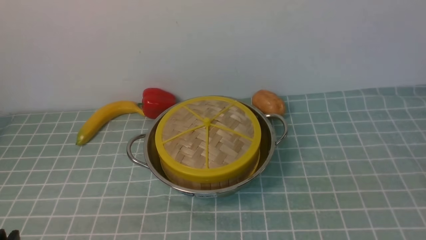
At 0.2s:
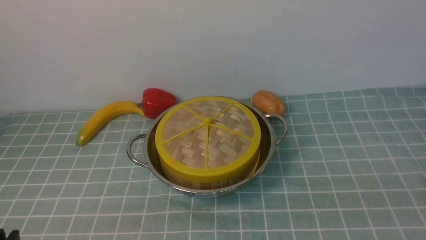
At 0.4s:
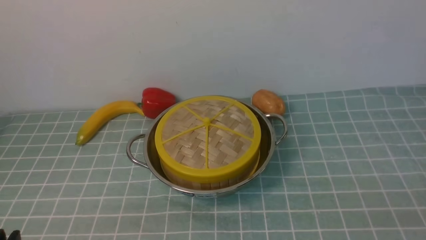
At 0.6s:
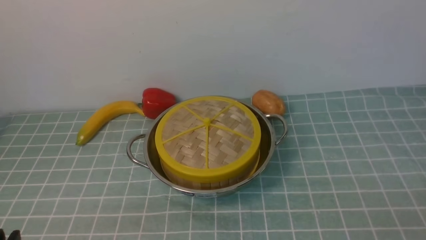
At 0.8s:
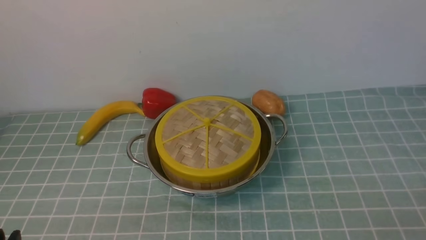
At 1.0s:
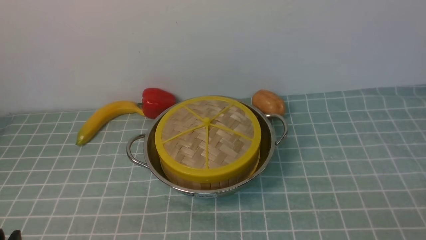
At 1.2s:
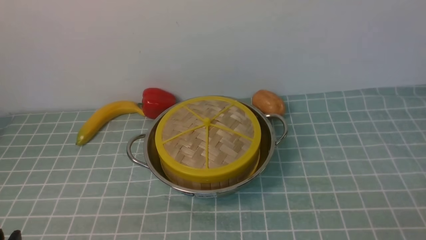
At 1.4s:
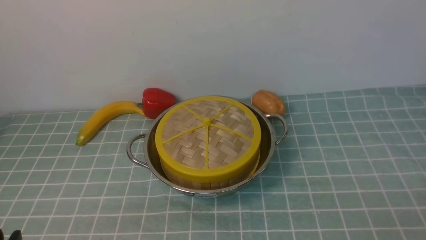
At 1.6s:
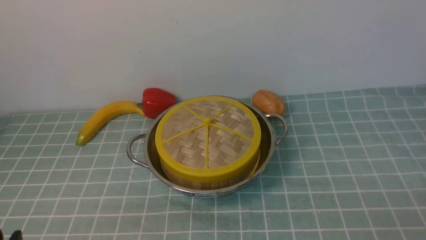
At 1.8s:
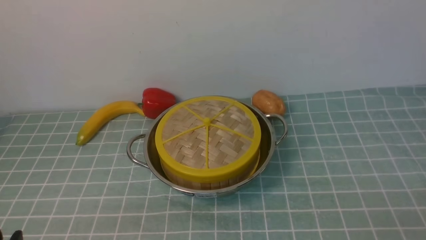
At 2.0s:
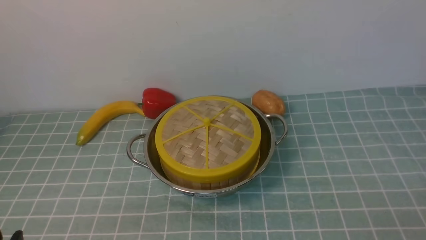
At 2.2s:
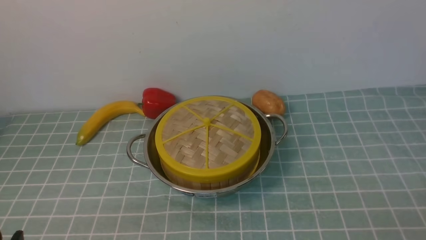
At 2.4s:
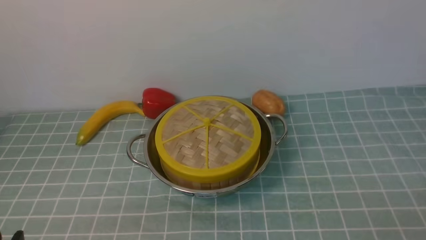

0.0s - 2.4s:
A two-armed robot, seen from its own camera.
Task of the whole recording: place the steamer in the pot on the blue tablecloth, and put the lid on the steamer.
1.2s - 2.4s: Both grippers stay about where they are.
